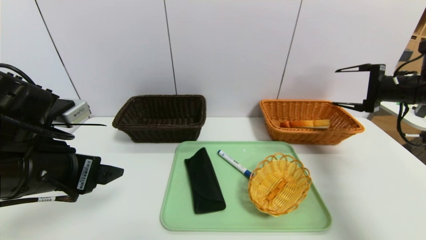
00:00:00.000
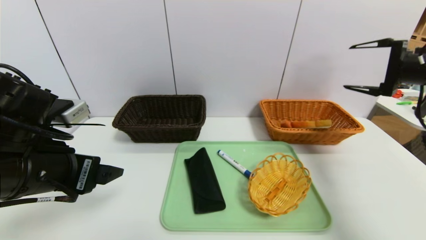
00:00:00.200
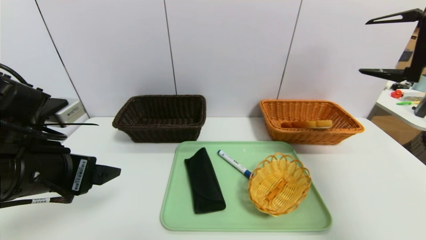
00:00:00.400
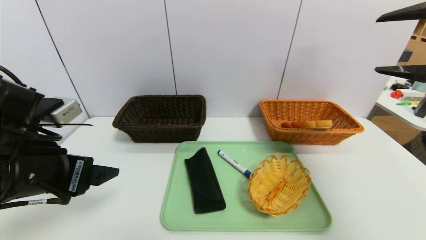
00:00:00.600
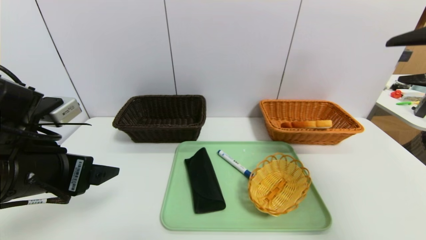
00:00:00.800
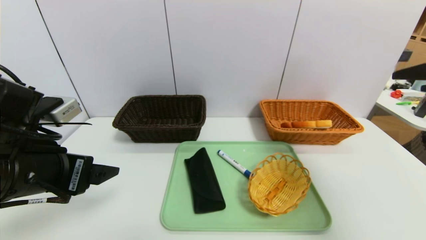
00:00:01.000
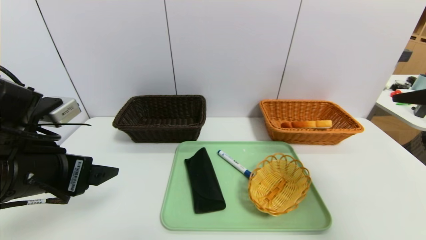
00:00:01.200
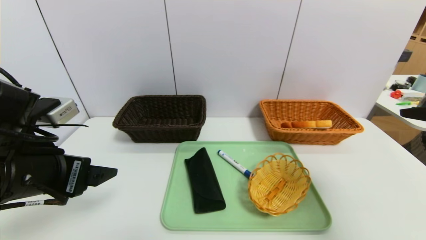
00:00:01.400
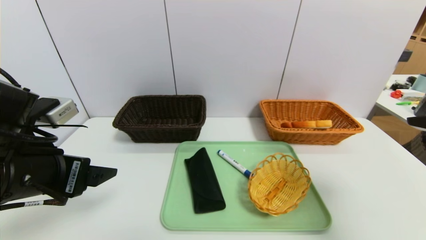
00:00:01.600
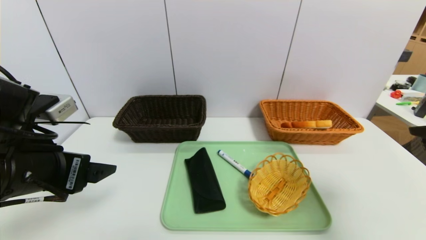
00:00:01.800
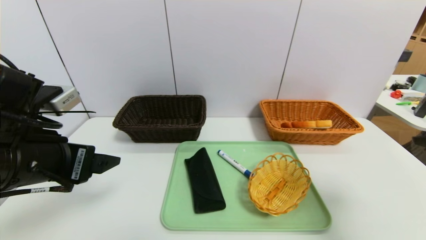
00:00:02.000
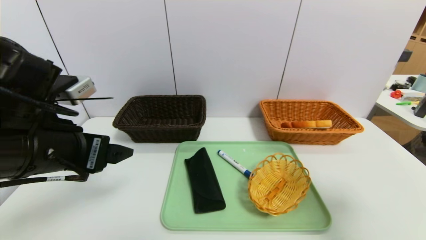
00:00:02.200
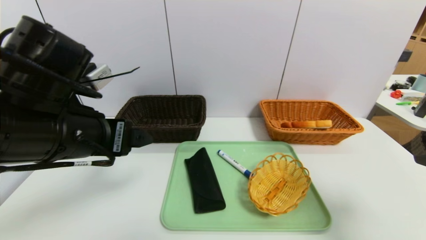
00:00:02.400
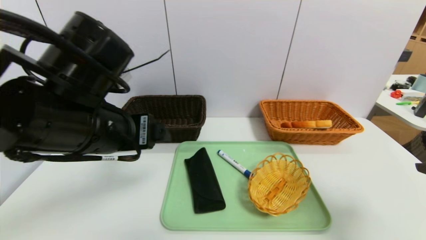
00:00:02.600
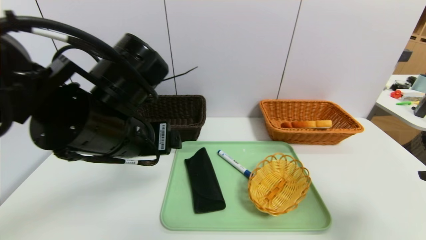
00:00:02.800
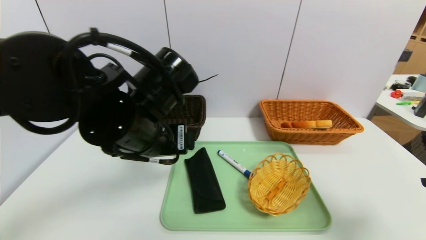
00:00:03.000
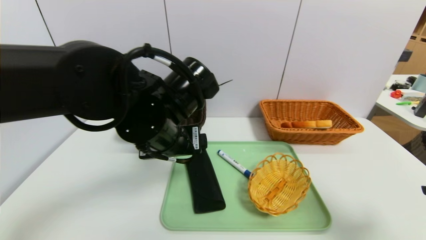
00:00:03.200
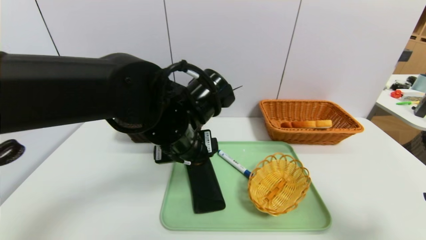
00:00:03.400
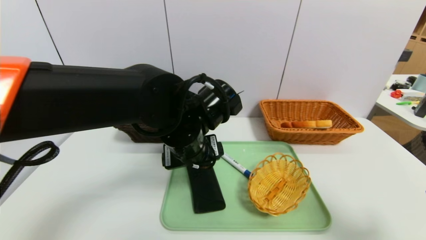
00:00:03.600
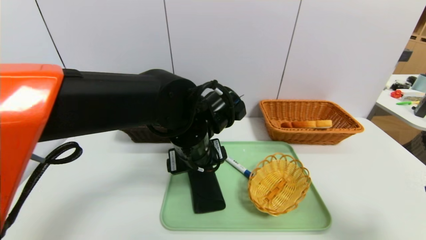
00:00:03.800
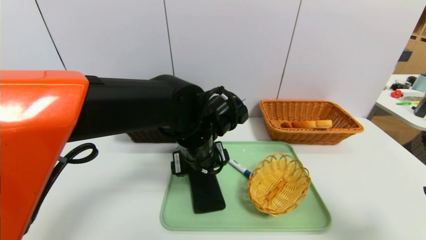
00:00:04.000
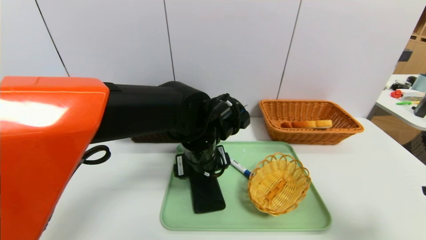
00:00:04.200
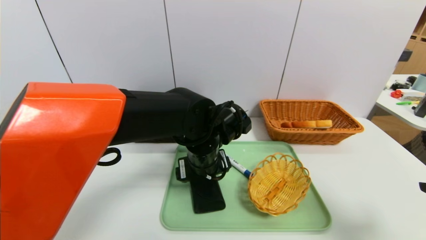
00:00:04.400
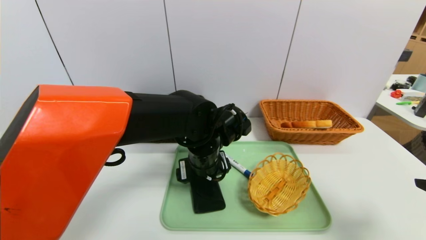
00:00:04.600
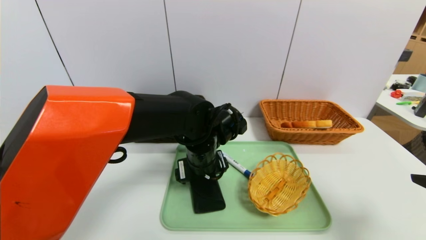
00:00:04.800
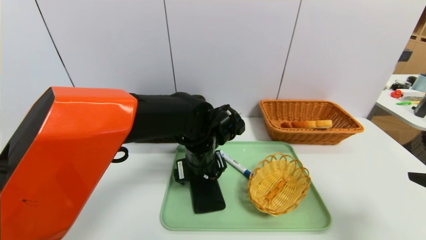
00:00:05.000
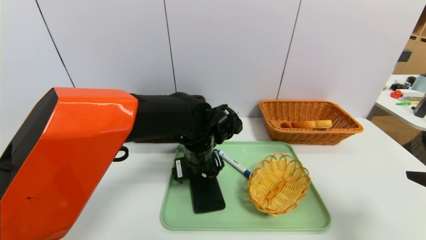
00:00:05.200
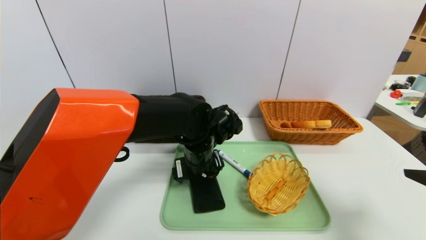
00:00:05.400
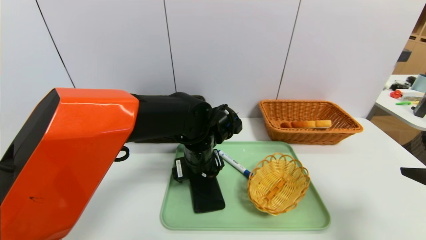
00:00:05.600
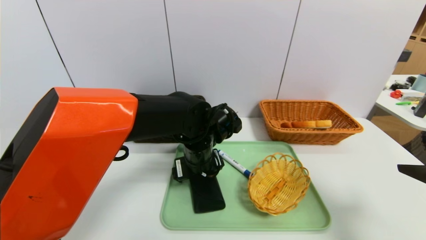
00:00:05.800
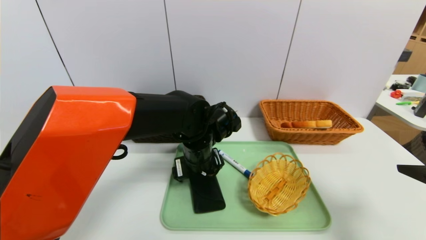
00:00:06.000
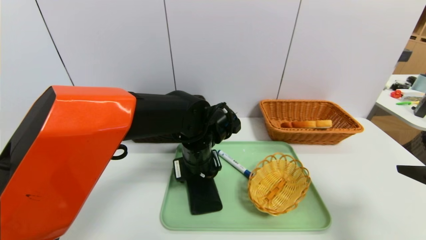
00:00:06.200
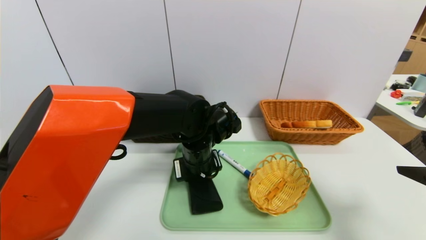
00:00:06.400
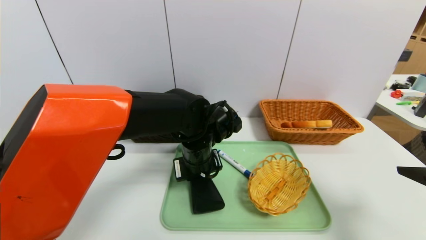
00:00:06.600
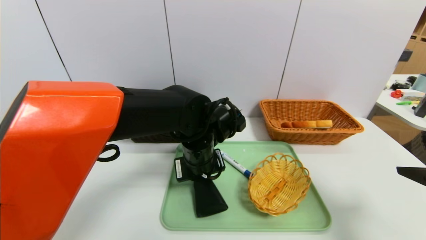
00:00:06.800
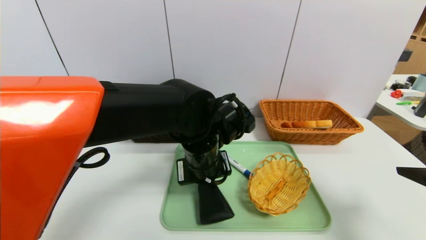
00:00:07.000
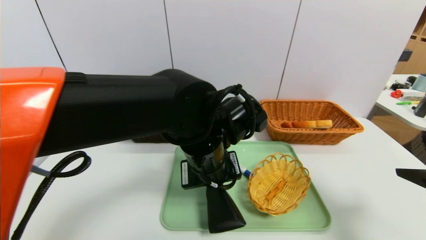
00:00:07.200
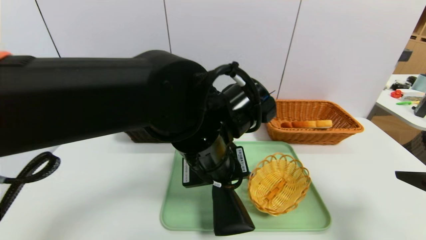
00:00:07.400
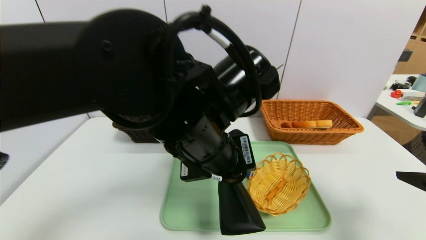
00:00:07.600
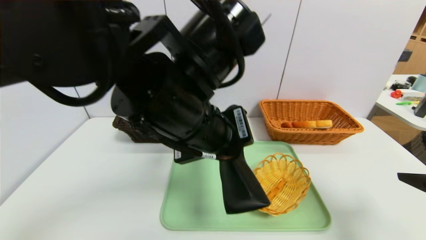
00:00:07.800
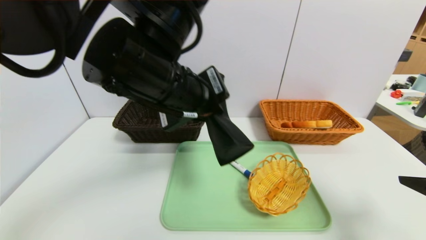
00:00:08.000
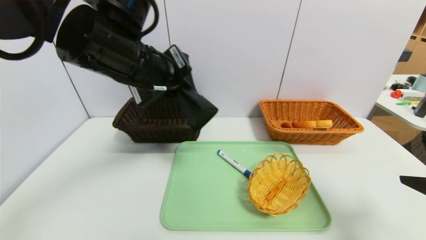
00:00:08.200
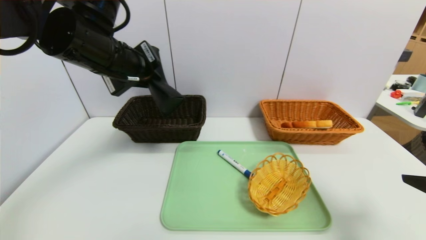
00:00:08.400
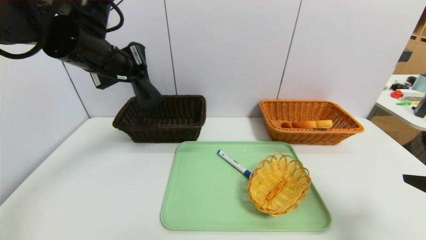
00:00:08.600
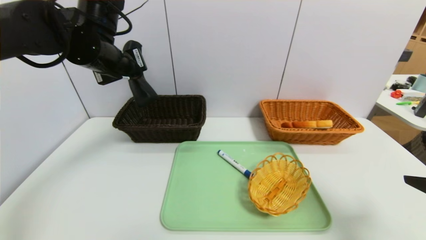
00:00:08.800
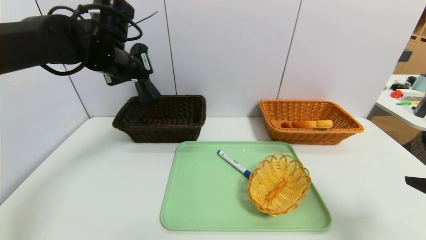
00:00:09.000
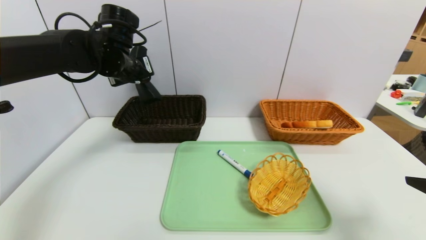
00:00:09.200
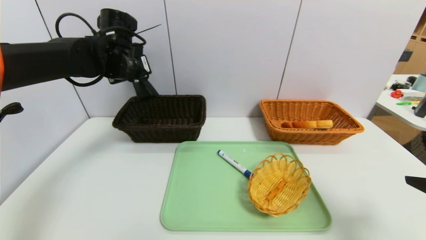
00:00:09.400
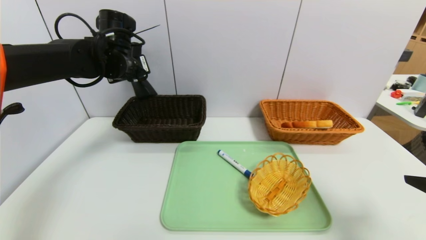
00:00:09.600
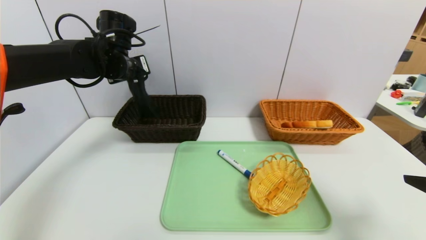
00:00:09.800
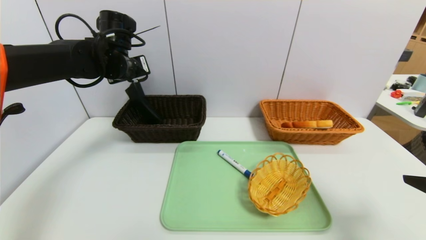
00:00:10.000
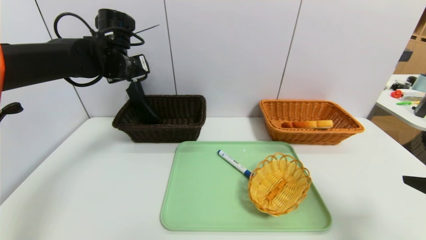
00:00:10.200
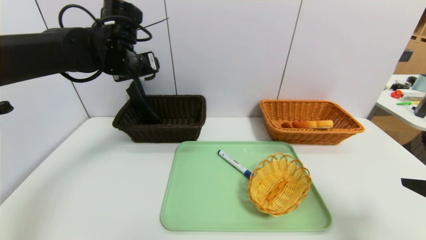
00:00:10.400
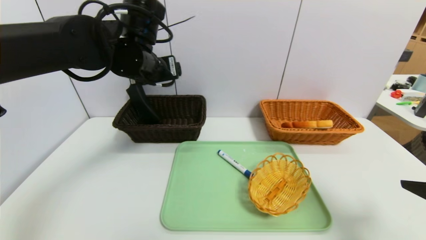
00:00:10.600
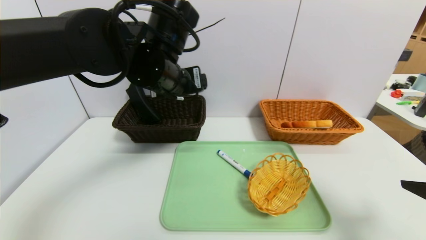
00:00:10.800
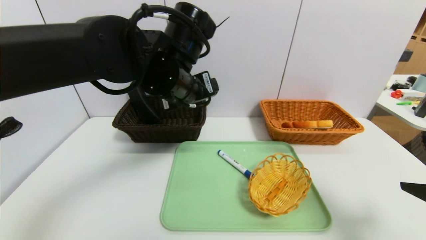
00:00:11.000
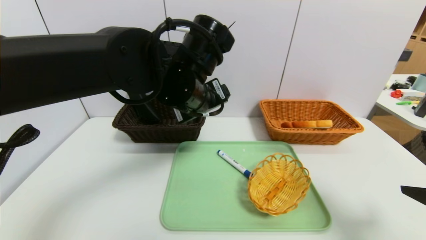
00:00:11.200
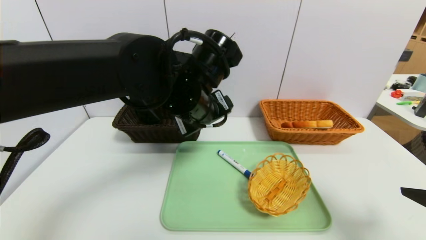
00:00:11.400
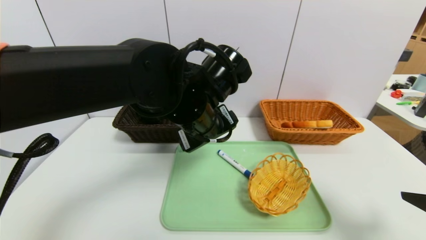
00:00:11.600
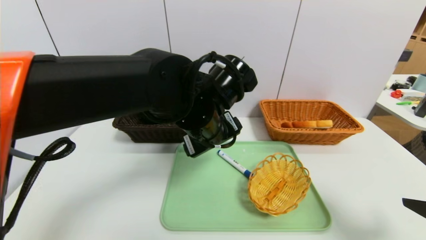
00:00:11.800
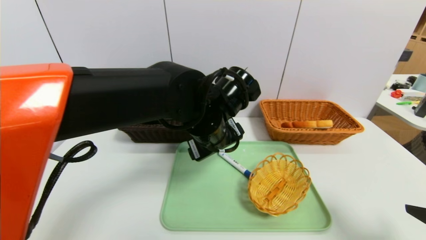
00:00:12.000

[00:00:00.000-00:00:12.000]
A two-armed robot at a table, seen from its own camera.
Task of the whole recording: place the food in the right basket with the right gripper, and place the non food items in the left basket with the left gripper.
Step, 00:00:00.000 to 00:00:10.200: Grasp the glasses case and put it in the left basket.
00:00:00.000 to 00:00:01.600: The right gripper shifts about 20 cm backward.
00:00:01.600 to 00:00:03.000: The right gripper shifts some 5 cm downward; the left gripper travels to the right and forward by roughly 15 cm.
00:00:03.000 to 00:00:04.400: The left gripper travels downward, to the right and forward by roughly 15 cm.
00:00:04.400 to 00:00:06.000: The grippers move only a little.
00:00:06.000 to 00:00:07.600: The left gripper heads upward and backward, covering some 15 cm, and closes.
00:00:07.600 to 00:00:09.000: The left gripper is displaced to the left and forward by some 25 cm.
00:00:09.000 to 00:00:10.400: The left gripper opens.
00:00:10.400 to 00:00:12.000: The left gripper moves to the right, backward and downward, about 20 cm.

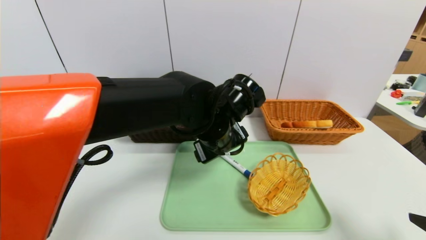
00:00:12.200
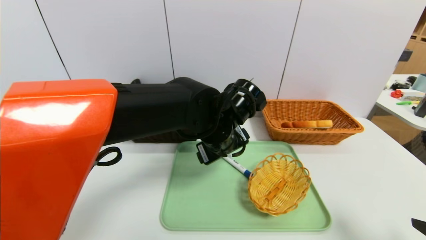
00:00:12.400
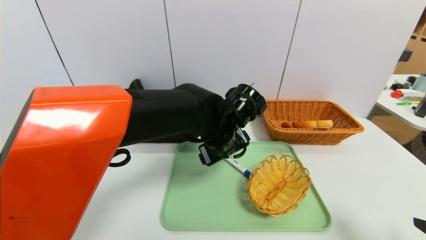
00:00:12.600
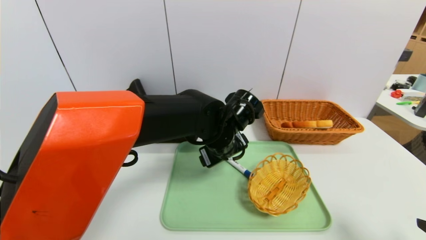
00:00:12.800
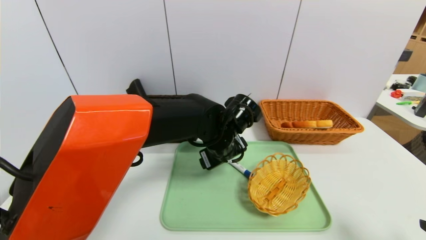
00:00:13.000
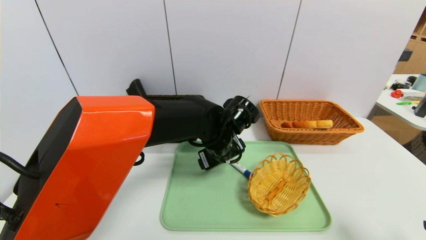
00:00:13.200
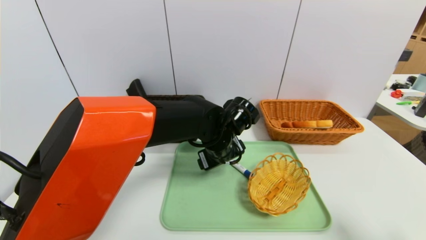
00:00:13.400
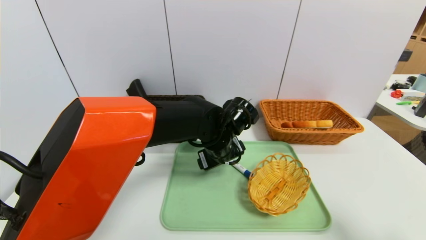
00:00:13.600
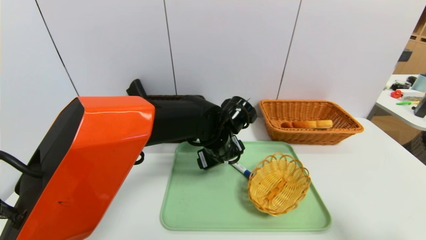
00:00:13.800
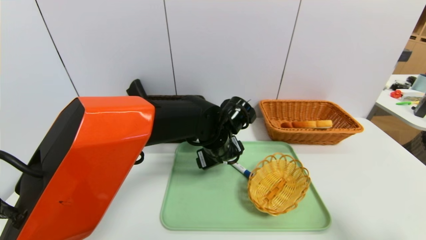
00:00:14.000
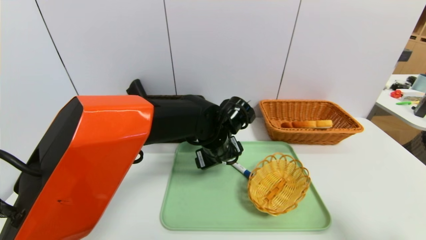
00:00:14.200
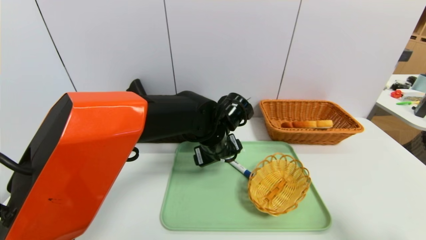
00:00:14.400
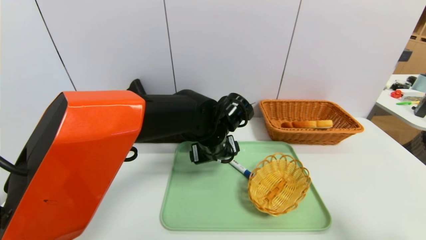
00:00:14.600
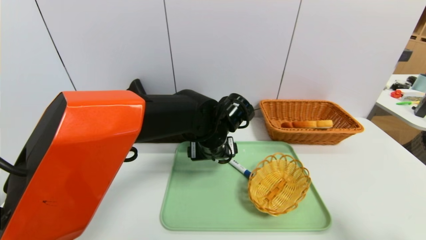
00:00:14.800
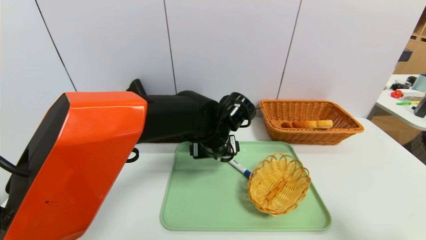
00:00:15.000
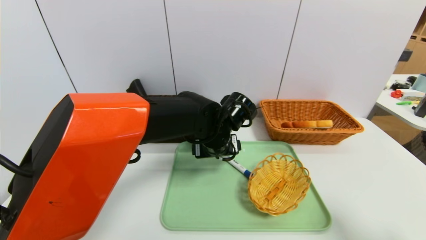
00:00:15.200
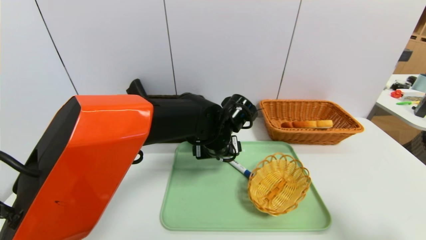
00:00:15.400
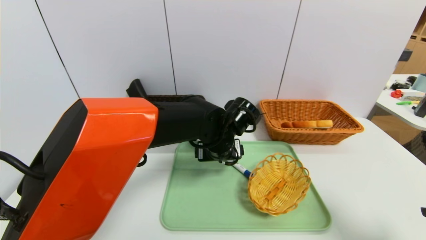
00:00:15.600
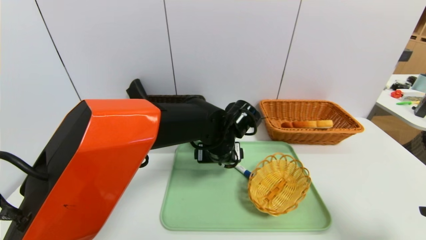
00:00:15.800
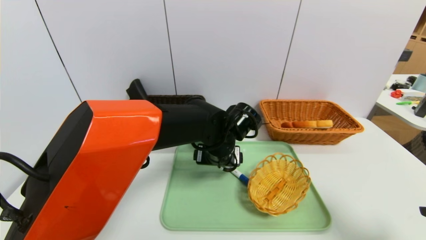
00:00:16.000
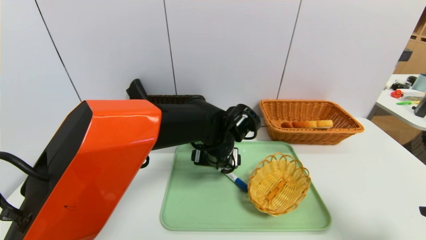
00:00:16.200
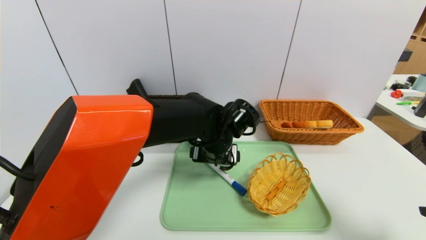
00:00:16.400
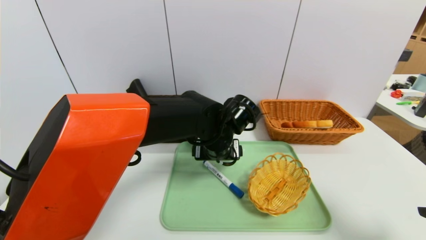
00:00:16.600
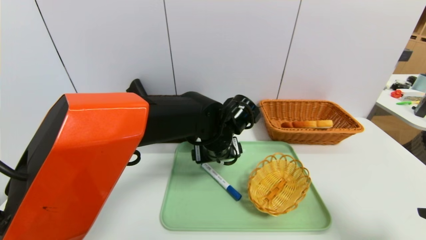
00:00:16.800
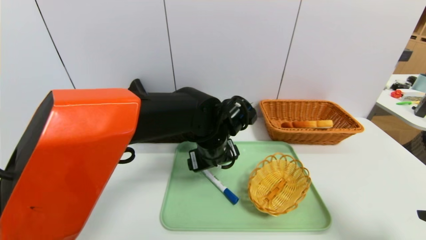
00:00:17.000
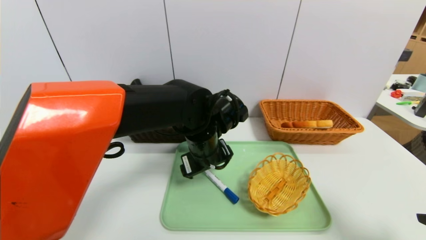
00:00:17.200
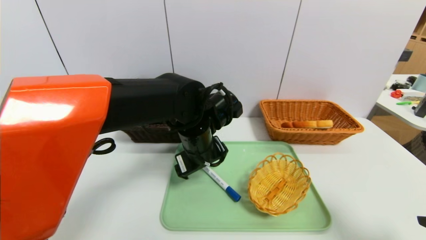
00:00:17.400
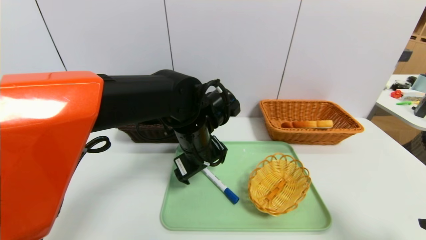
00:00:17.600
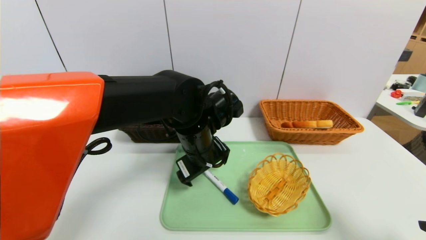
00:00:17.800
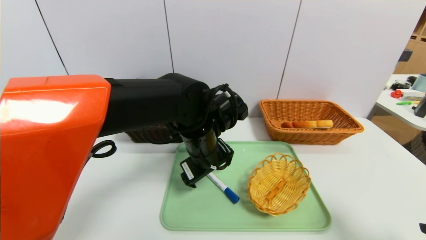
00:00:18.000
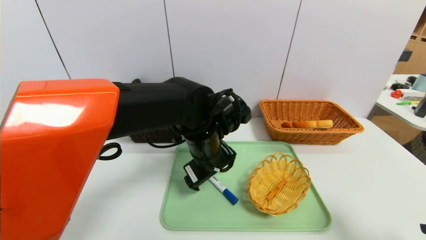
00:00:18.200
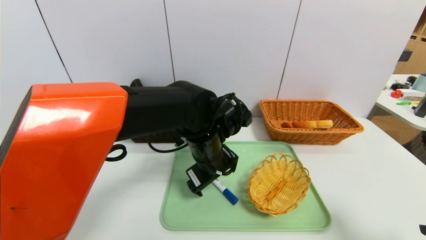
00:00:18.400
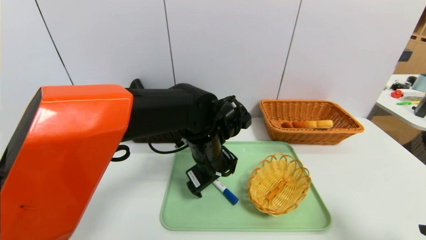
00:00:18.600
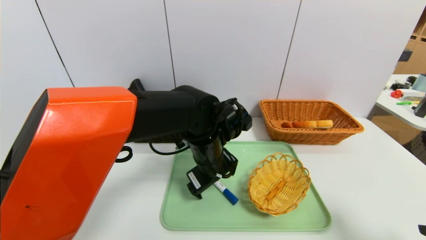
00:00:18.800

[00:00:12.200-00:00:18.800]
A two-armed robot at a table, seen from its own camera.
Task of the whole recording: place the food in the right basket with the right gripper, and place the non food items in the left basket with the left gripper.
00:00:12.200 to 00:00:13.800: The left gripper heads downward, covering approximately 5 cm.
00:00:17.200 to 00:00:18.800: The grippers make only small movements.
